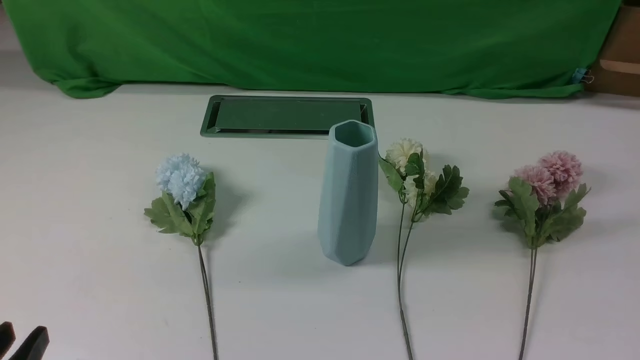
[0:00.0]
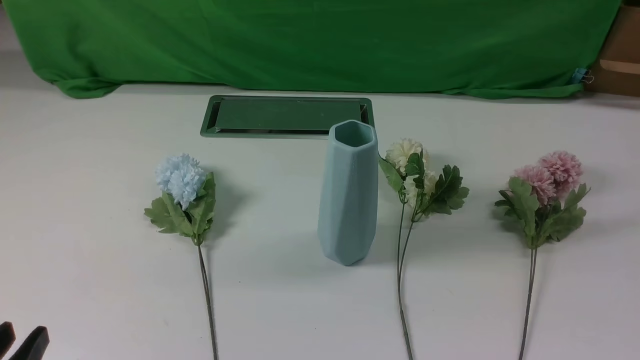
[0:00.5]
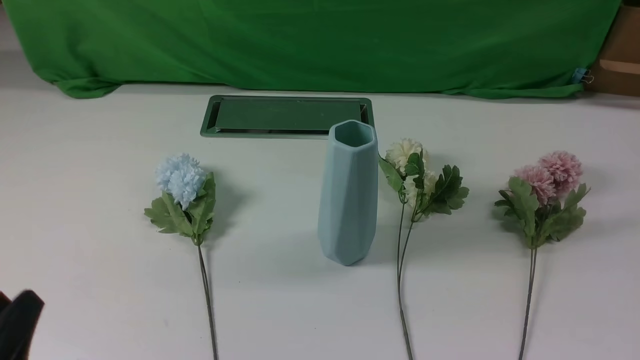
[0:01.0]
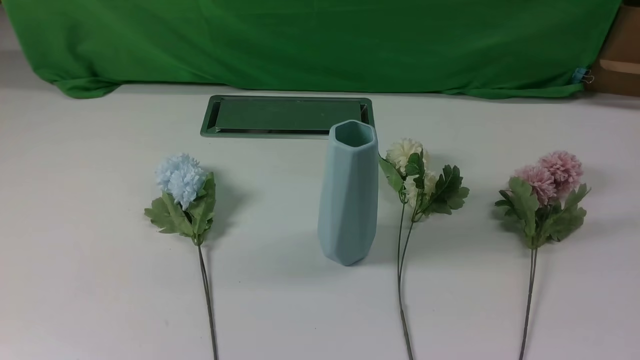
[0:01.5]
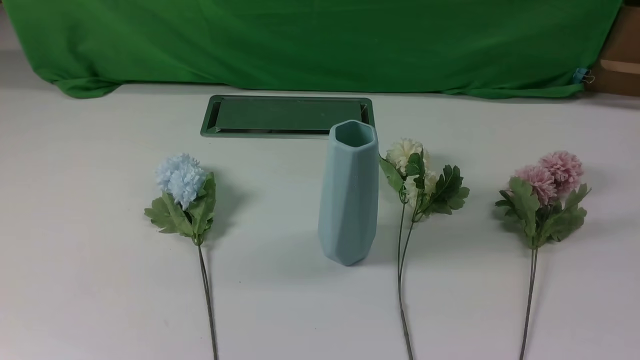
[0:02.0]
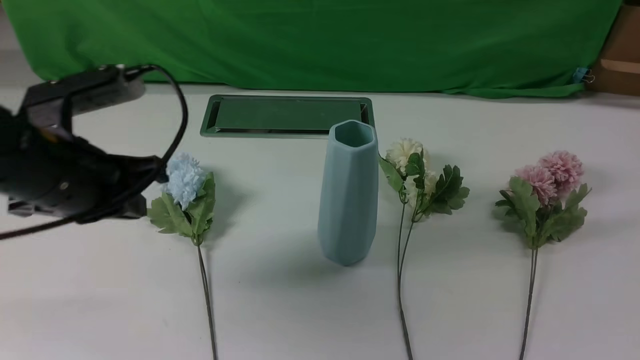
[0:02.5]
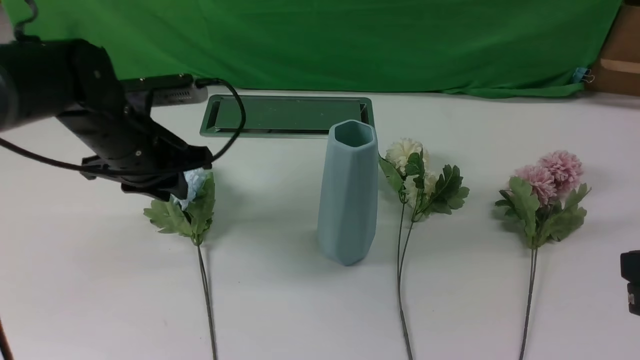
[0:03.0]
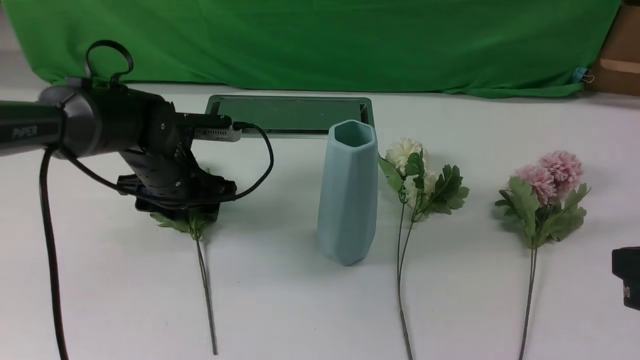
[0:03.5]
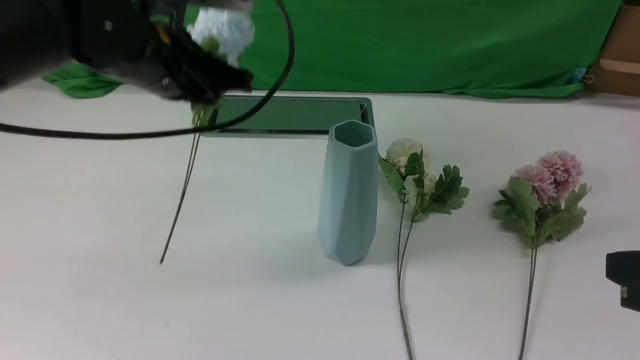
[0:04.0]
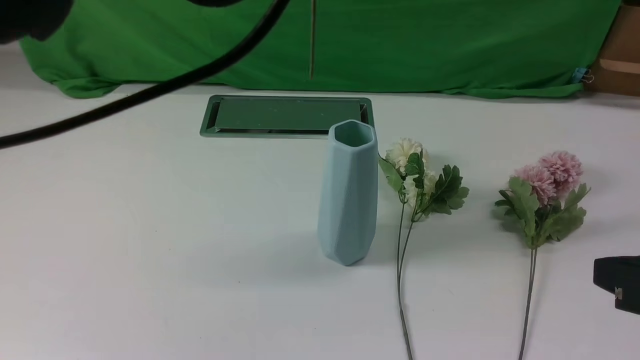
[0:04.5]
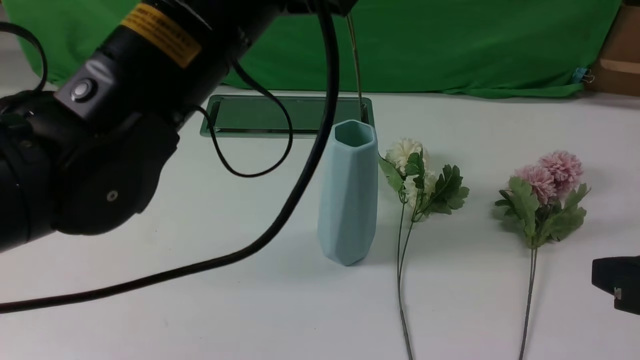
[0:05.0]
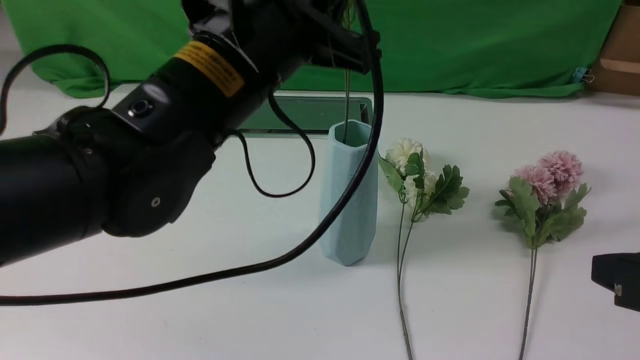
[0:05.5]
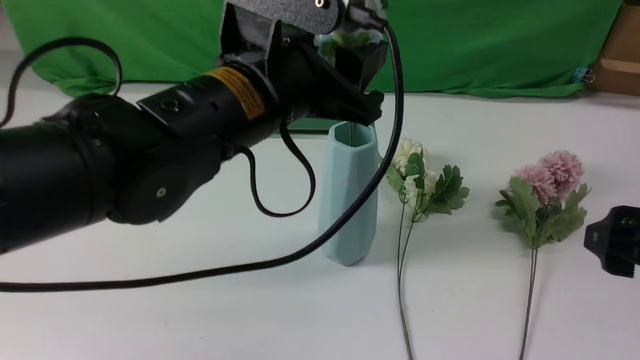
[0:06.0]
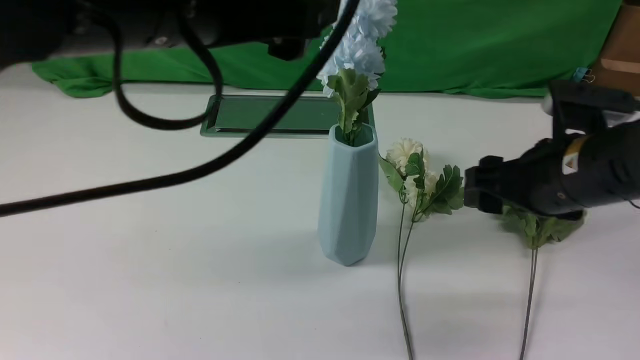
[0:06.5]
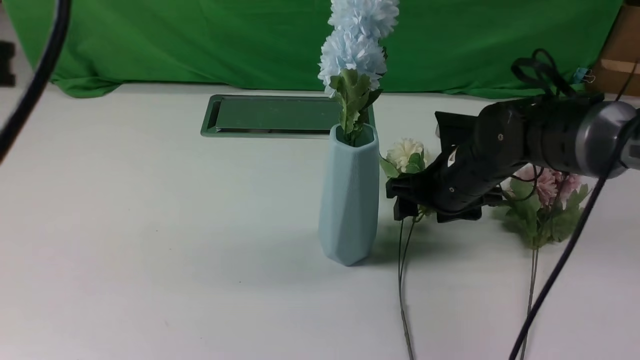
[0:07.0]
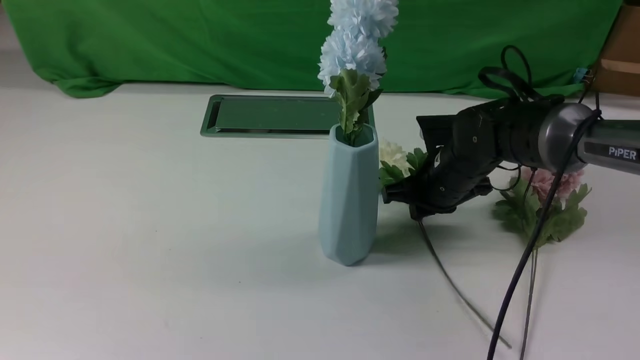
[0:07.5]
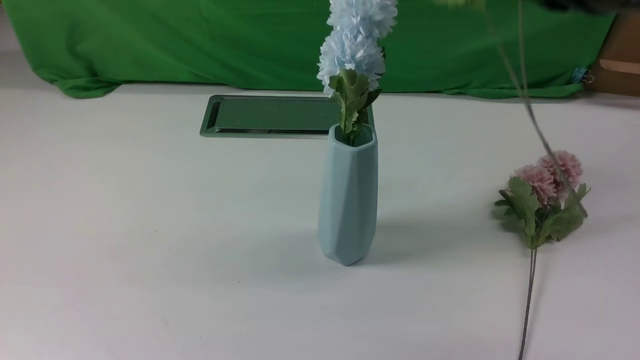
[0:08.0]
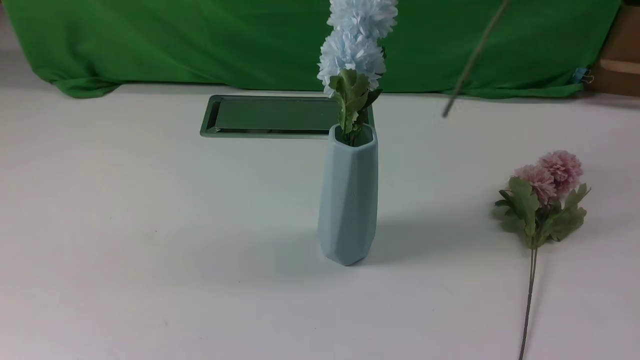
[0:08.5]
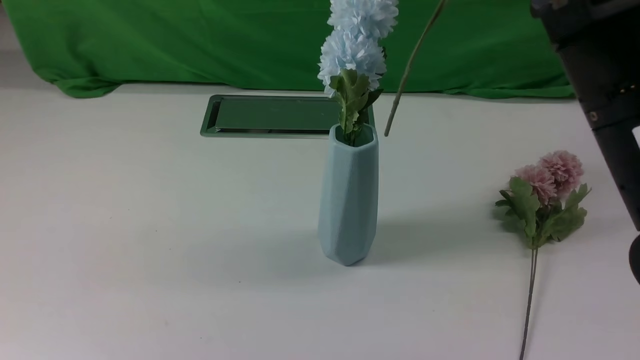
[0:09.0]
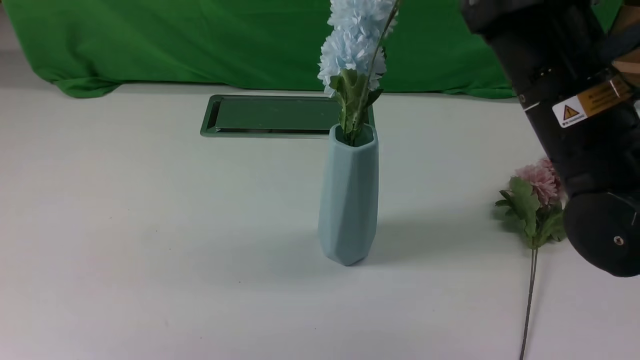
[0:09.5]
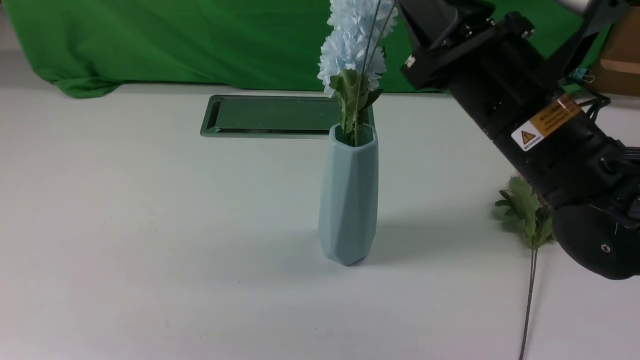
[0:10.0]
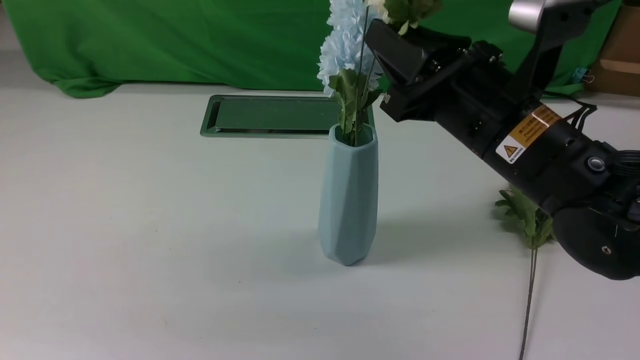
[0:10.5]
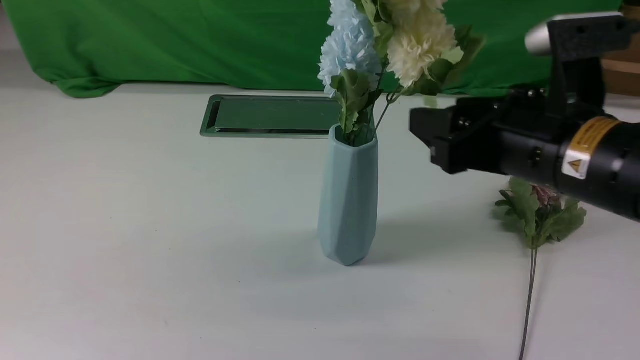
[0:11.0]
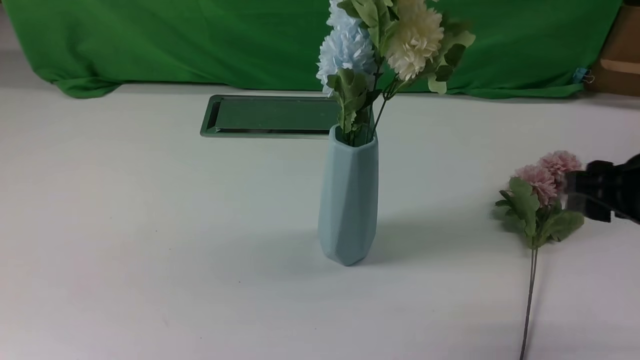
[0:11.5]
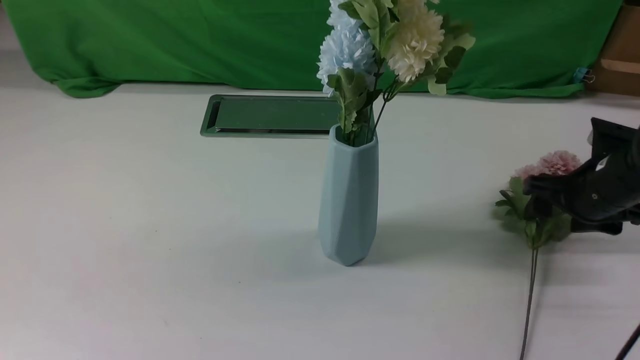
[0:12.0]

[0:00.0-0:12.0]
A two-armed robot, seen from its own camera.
Task of the whole recording: insert the flowers into the vase on the white table.
Step, 0:00.0 to 0:03.5: use the left arm to grab a bunch of fresh flowers.
Step, 0:04.0 to 0:06.0: use the left arm to insert the flowers into the vase.
Step, 0:06.5 to 0:07.5: use the right arm to grab a bunch of fresh flowers.
Step, 0:08.0 to 0:10.5: use the right arm to insert the flowers into the vase.
0:02.0 to 0:04.0: The right gripper travels forward, to the left and upward by approximately 10 cm. The left gripper is displaced forward and to the right by some 30 cm, and opens, then closes again.
0:04.0 to 0:06.0: The left gripper shifts some 10 cm backward and to the right, moves approximately 10 cm upward and comes back, and opens up. The right gripper is displaced forward by approximately 5 cm, and opens its fingers.
0:06.0 to 0:08.0: The right gripper heads upward, forward and to the left, covering approximately 20 cm, and closes; the left gripper goes some 25 cm backward, to the left and upward, and closes its fingers.
0:08.0 to 0:10.0: The right gripper heads downward and to the left, covering about 10 cm, and moves approximately 10 cm backward and comes back.
0:10.0 to 0:12.0: The right gripper heads to the right, downward and forward, covering some 25 cm, and opens.

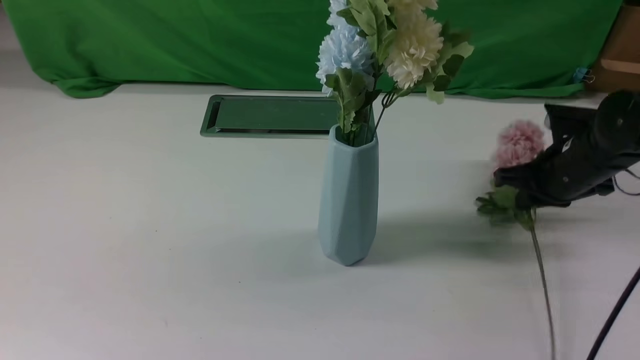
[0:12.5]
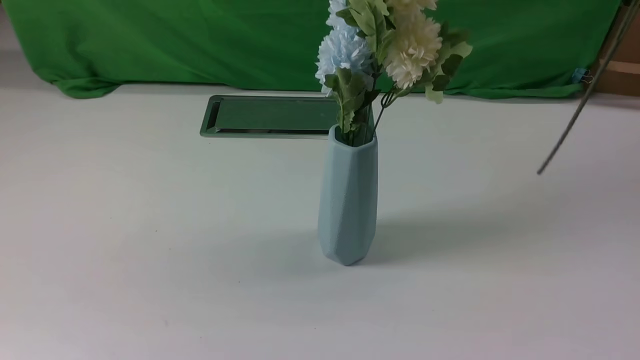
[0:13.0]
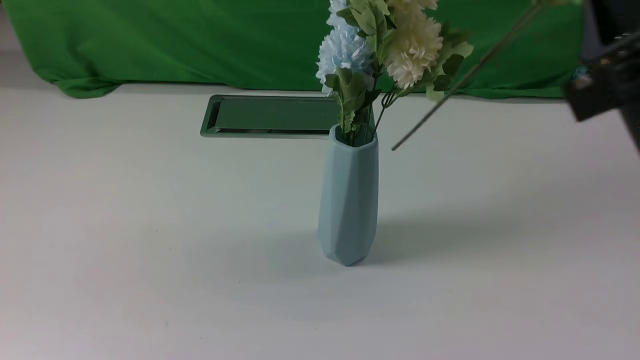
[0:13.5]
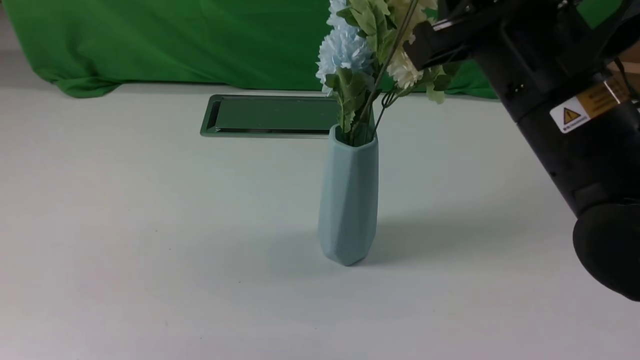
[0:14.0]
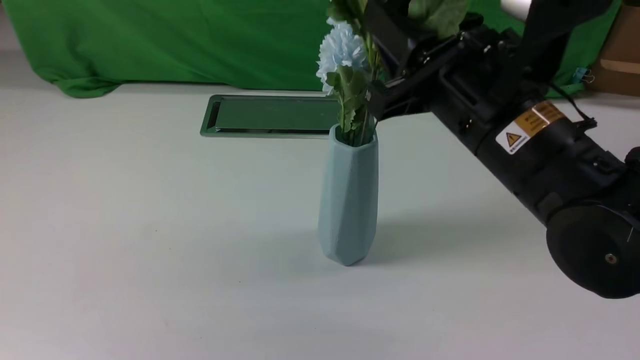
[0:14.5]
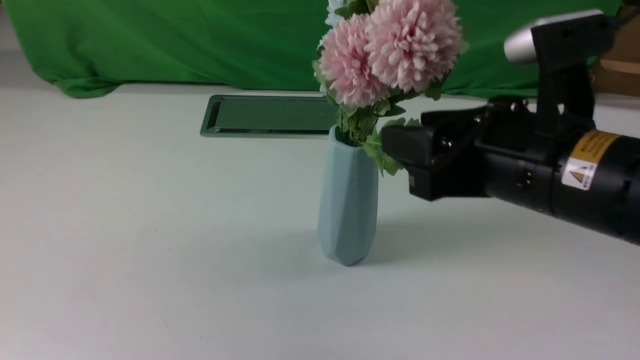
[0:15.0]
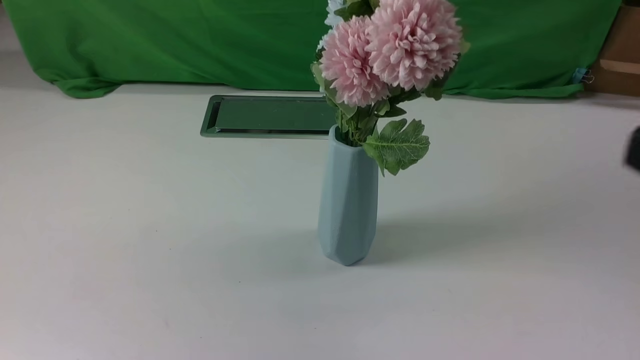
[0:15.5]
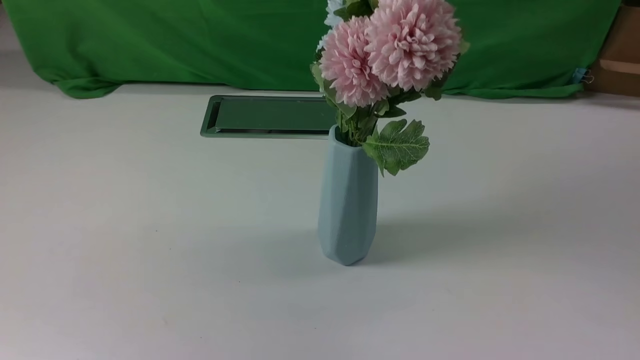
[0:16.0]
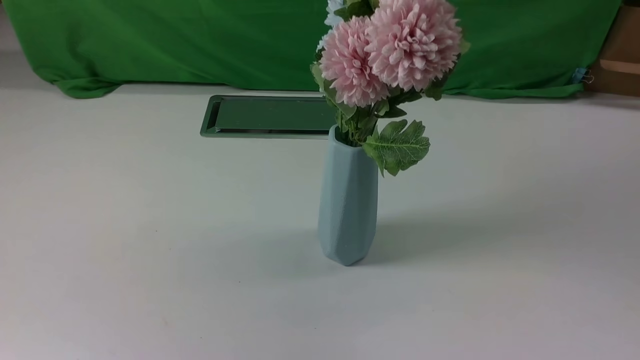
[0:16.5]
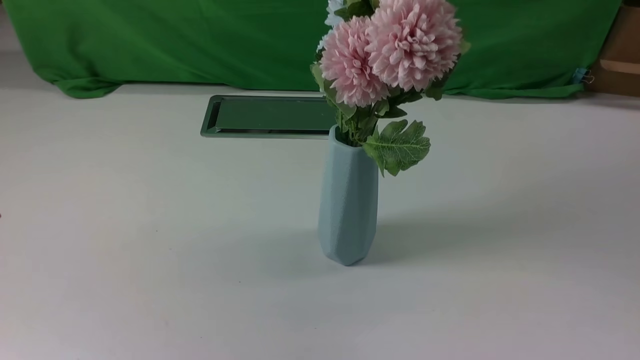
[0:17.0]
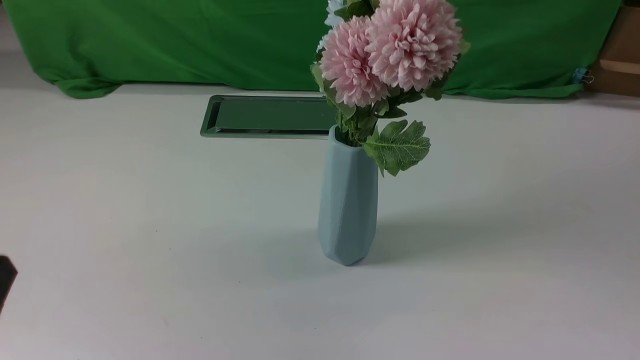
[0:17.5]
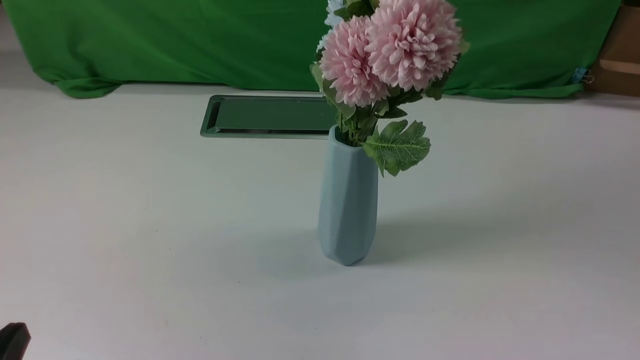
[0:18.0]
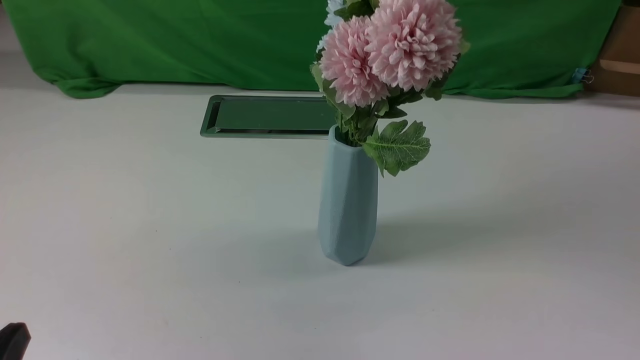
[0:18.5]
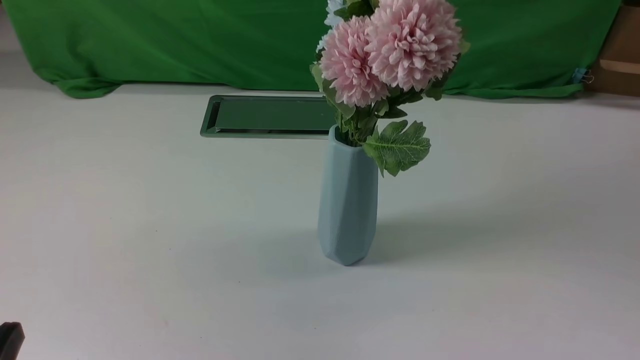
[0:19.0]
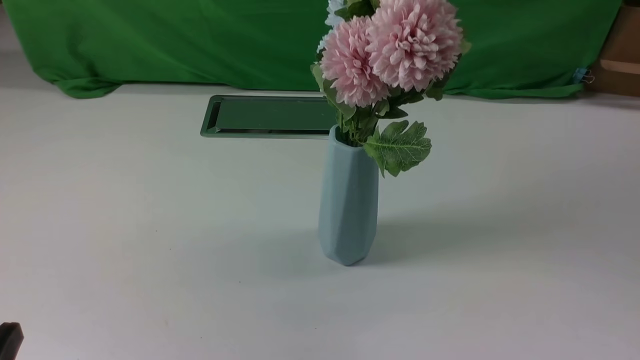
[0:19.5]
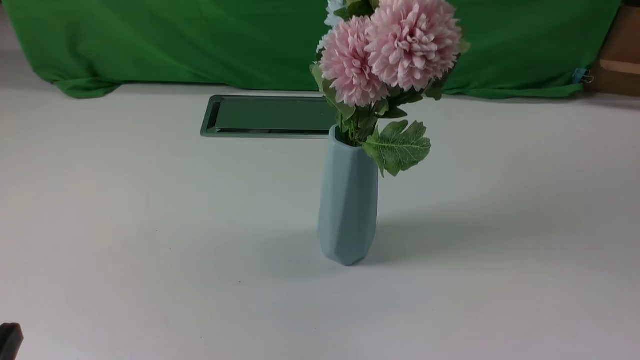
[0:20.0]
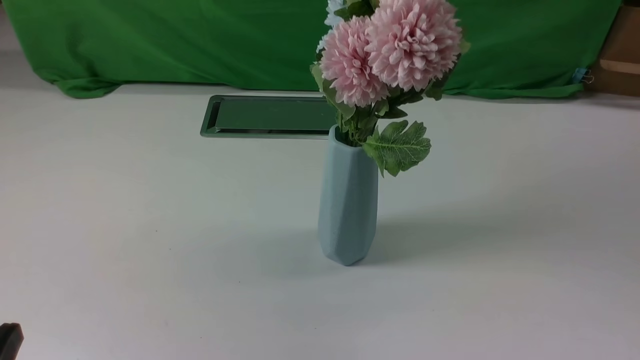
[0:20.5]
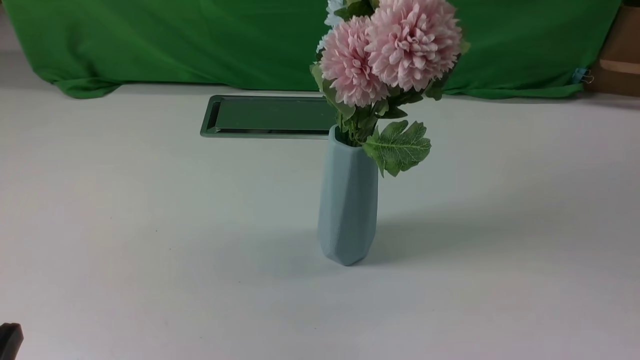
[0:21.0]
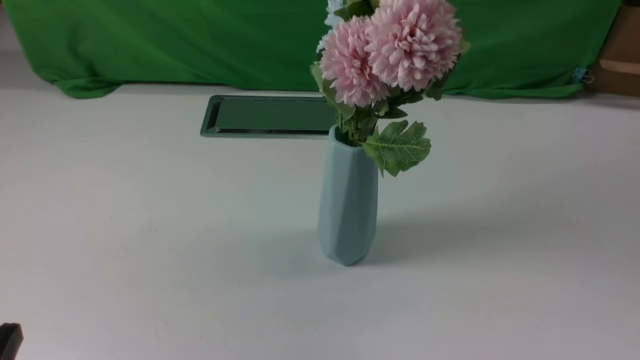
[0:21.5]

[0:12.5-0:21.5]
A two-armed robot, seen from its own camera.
Task of the whole recording: insert the flowers into the vase on the white table.
Step, 0:13.0 to 0:14.5: use the right arm to insert the flowers into the vase.
0:12.5 to 0:14.5: The right gripper heads to the left, backward and upward, covering approximately 20 cm, and opens up.
0:14.5 to 0:17.0: The right gripper travels backward and to the right by some 30 cm. The left gripper heads downward, covering approximately 10 cm.
